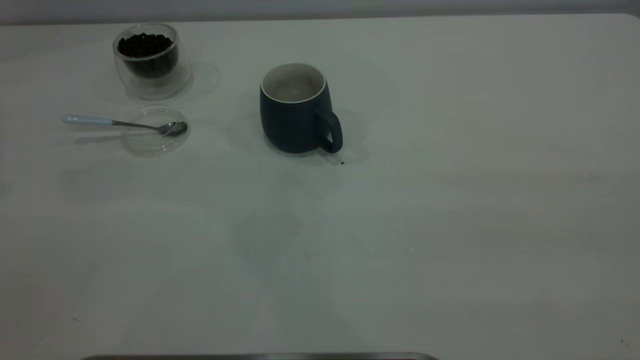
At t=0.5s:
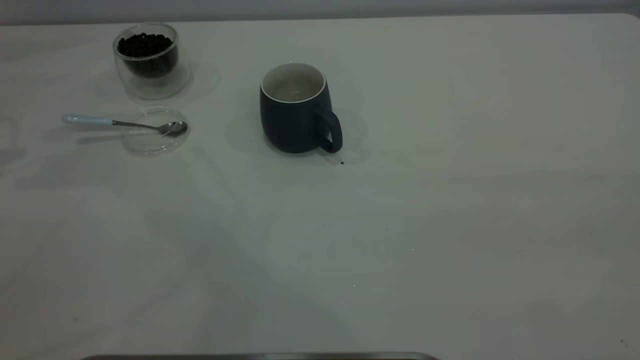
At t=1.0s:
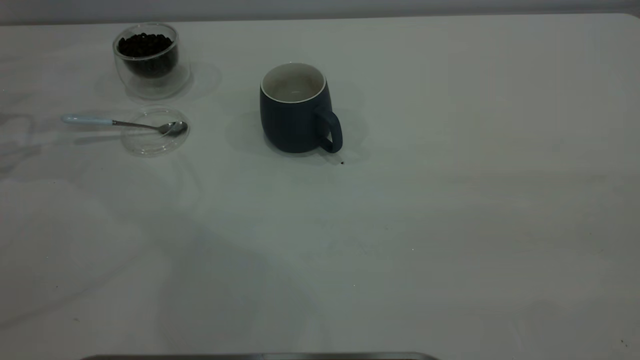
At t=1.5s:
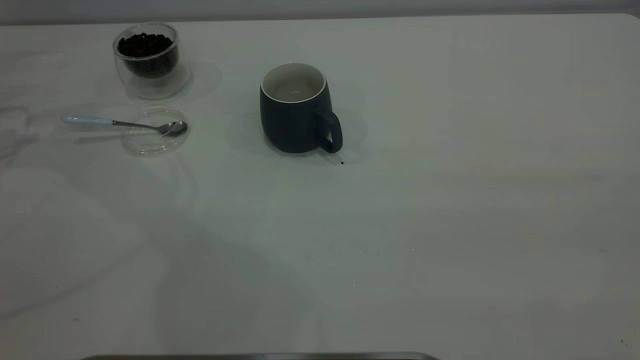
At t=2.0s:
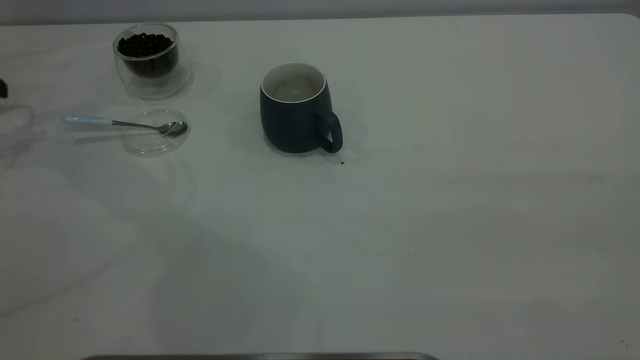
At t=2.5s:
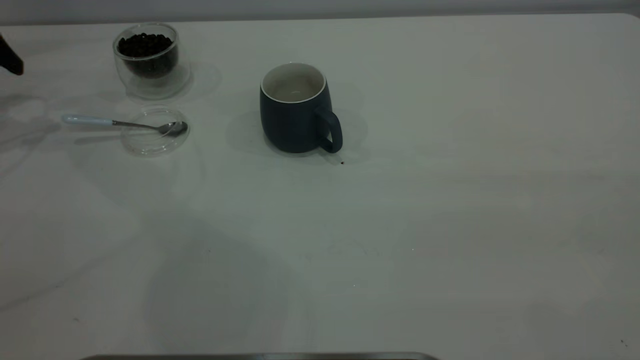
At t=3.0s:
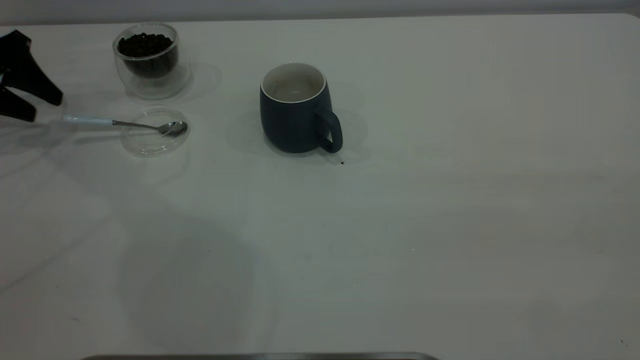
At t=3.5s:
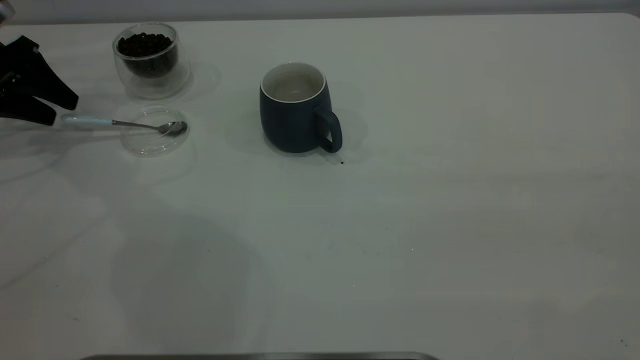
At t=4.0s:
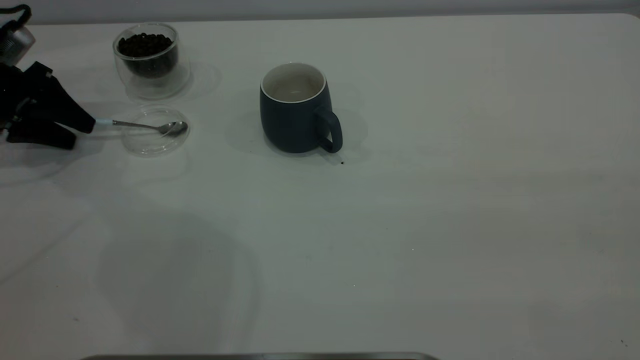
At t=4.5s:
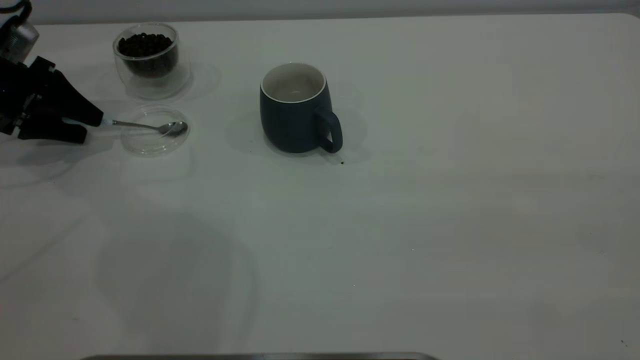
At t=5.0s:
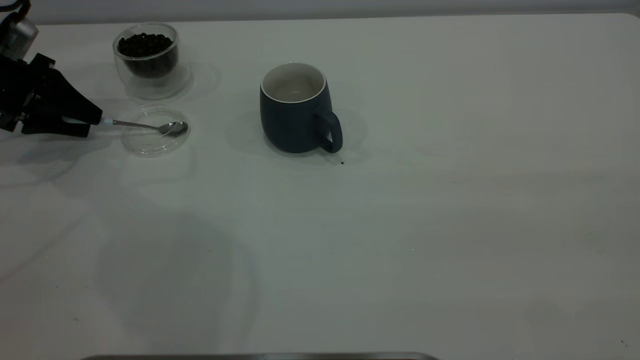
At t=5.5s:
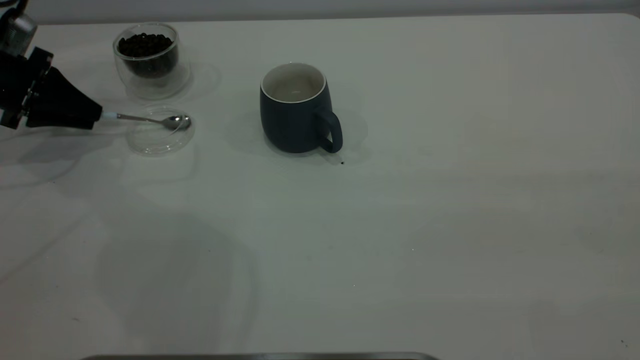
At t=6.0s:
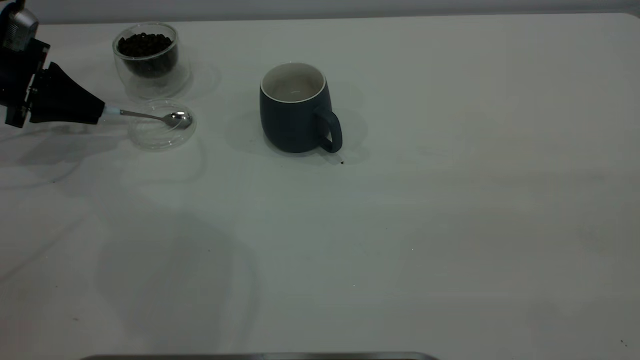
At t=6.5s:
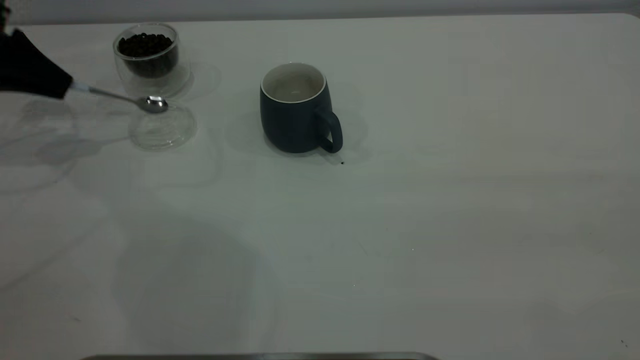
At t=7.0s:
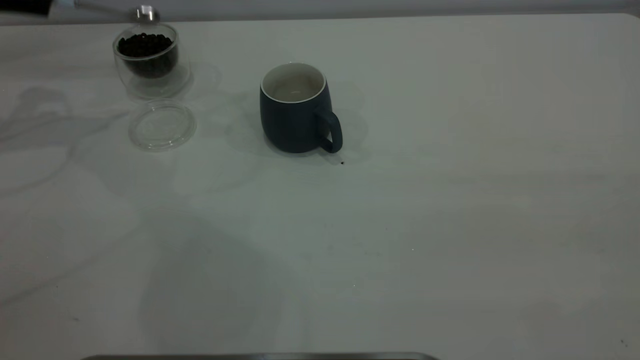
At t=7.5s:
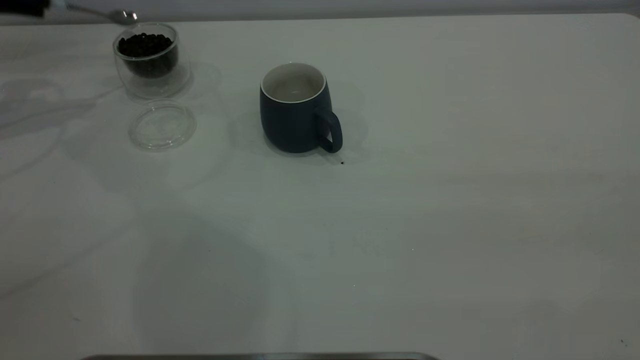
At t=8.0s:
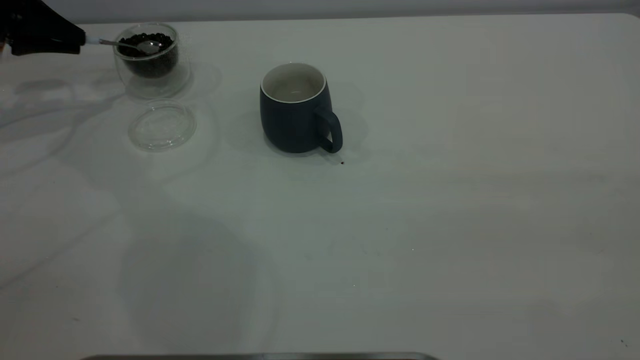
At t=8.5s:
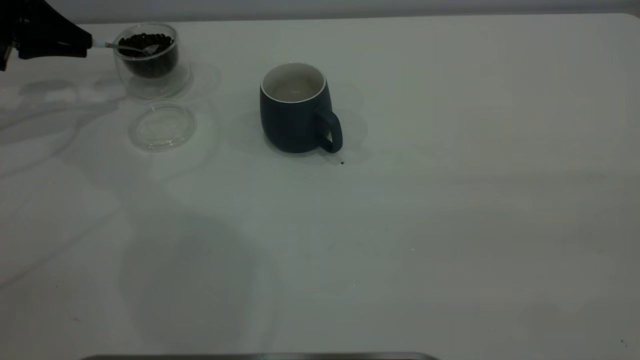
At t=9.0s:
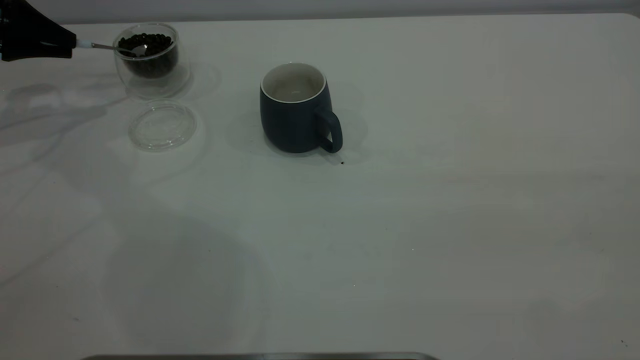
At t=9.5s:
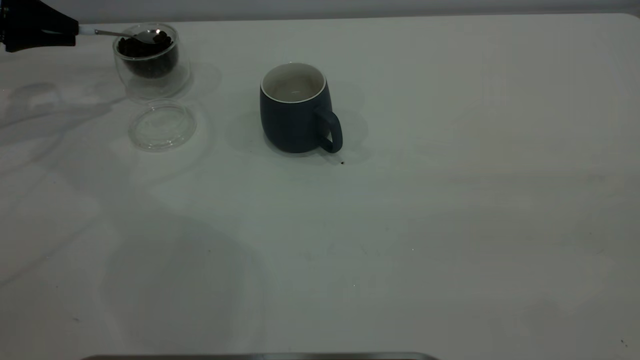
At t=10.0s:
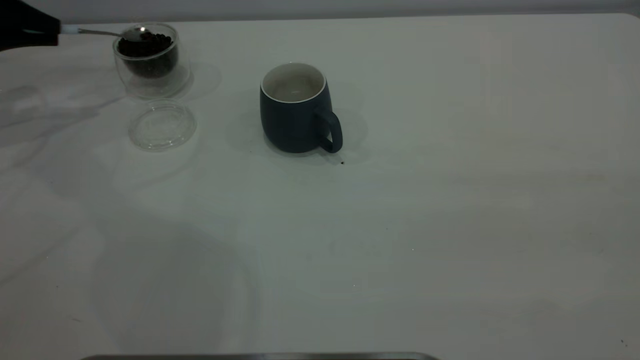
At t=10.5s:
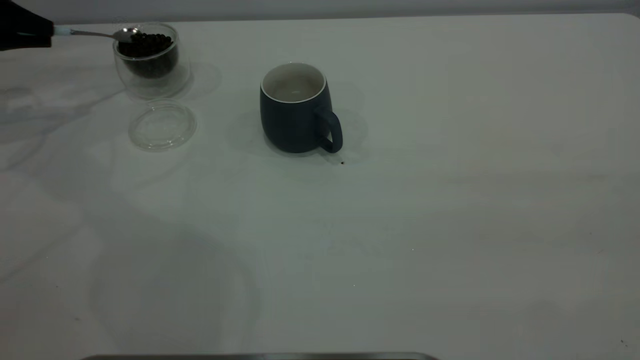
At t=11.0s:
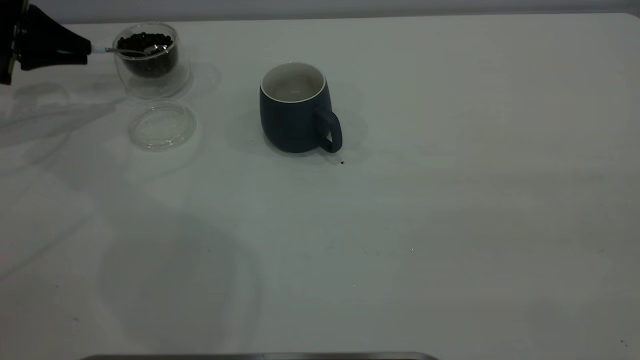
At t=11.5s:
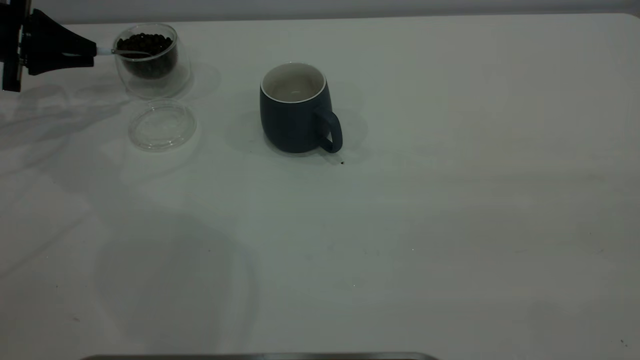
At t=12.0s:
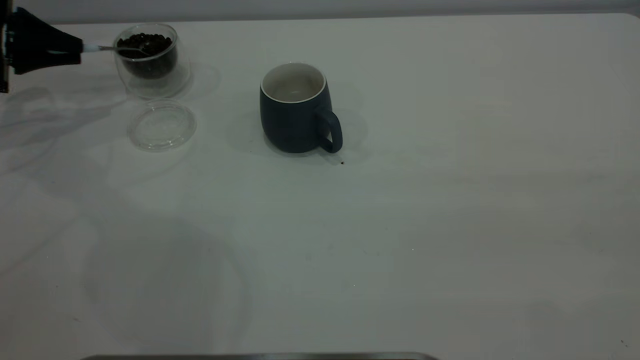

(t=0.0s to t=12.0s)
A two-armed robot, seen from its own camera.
Task of the whole recording: the right gripper place the grey cup in the center of the table, the left gripper take the blue spoon from the cup lid and scoop out the coffee beans from the coffee cup and put them into the grey cup, the left gripper put the spoon back into the cup lid.
Step, t=0.0s - t=6.0s: Pick up the spoon.
t=2.0s - t=4.0s: The left gripper is displaced downward by approximately 10 cm.
t=4.0s - t=6.0s: The left gripper closes its fingers.
t=6.0s - t=8.0s: The left gripper shifts some 5 cm upward.
t=8.0s - t=12.0s: The grippers stay close to where they were, moving slightly.

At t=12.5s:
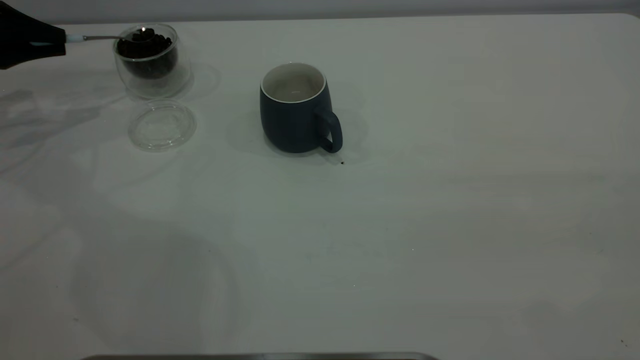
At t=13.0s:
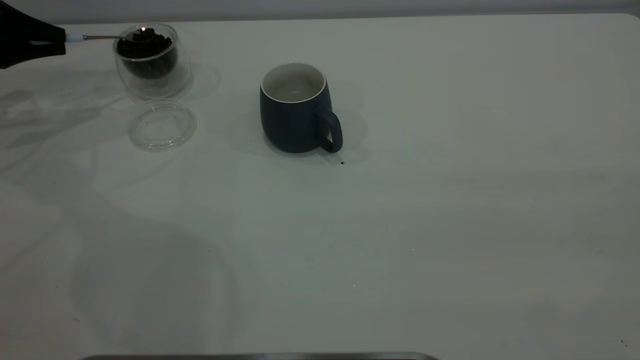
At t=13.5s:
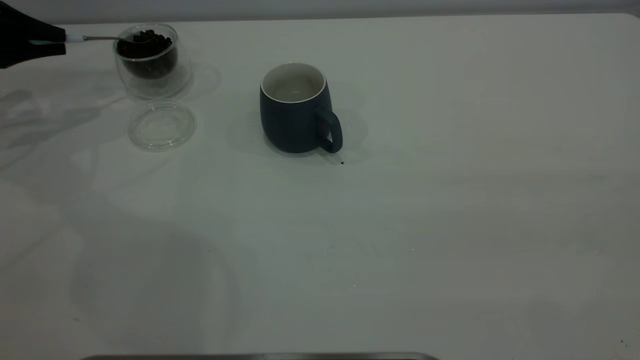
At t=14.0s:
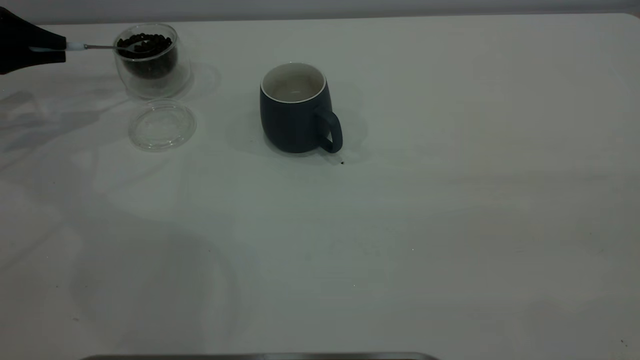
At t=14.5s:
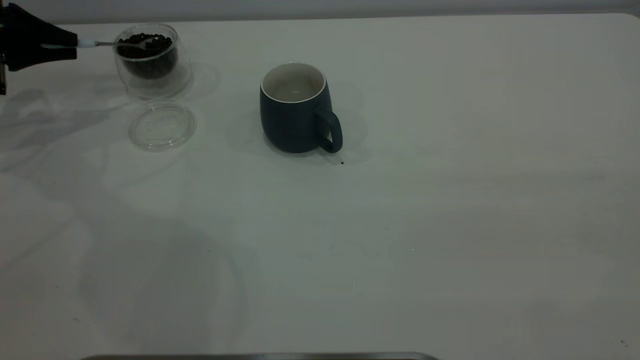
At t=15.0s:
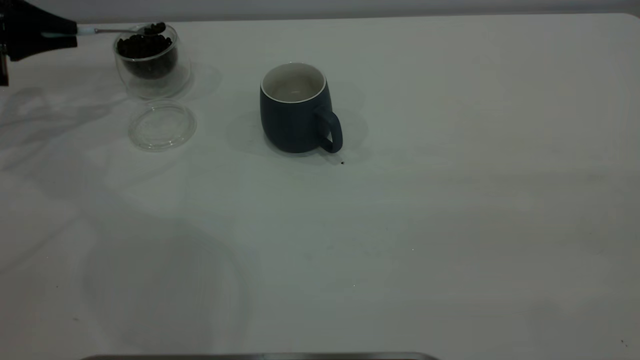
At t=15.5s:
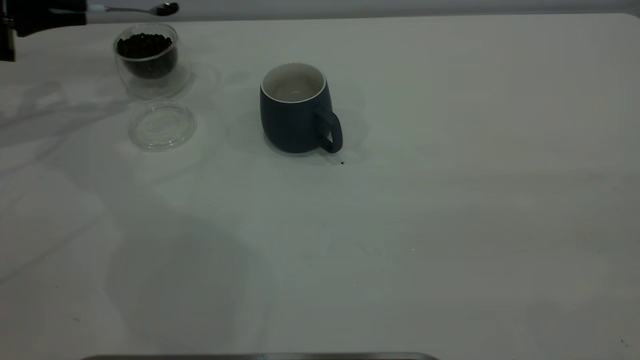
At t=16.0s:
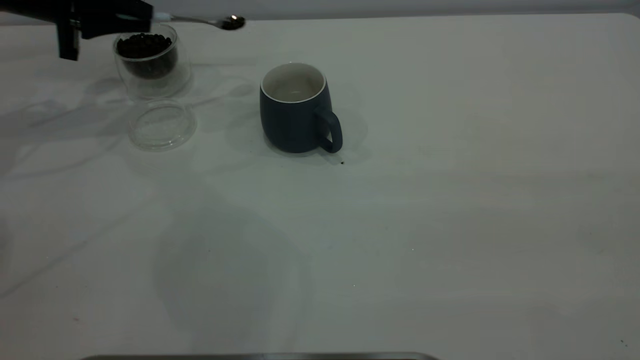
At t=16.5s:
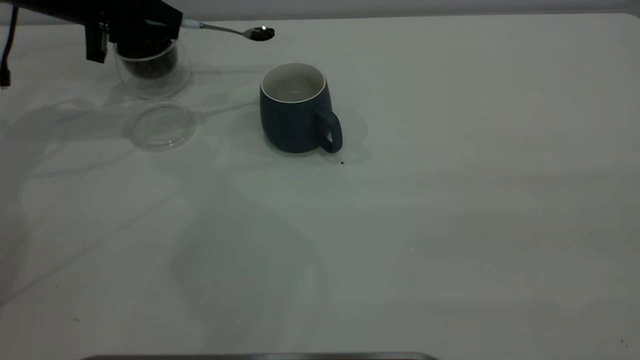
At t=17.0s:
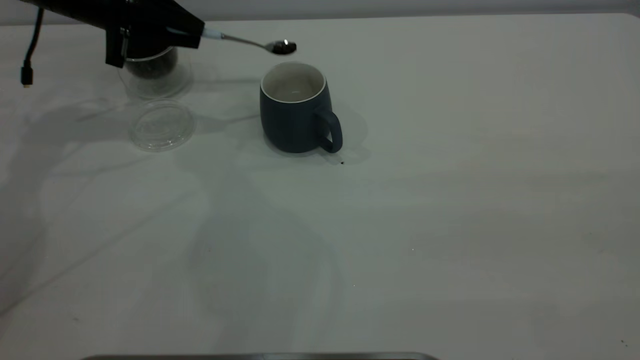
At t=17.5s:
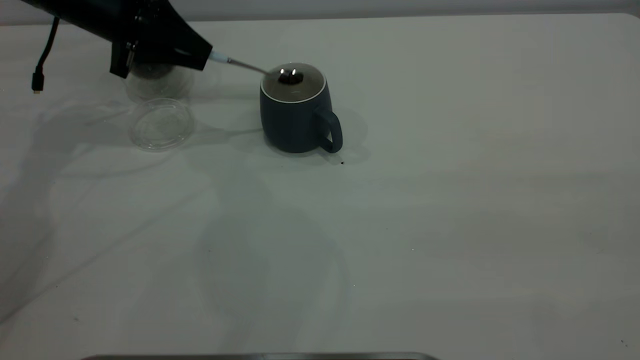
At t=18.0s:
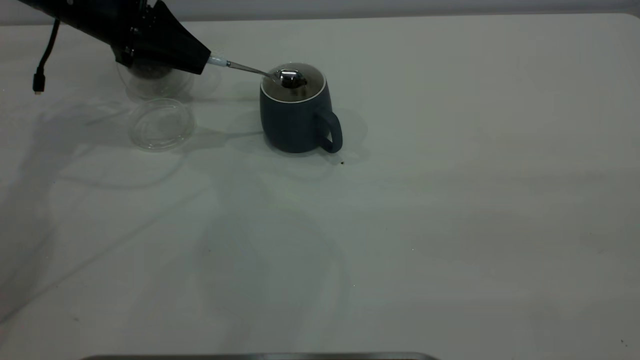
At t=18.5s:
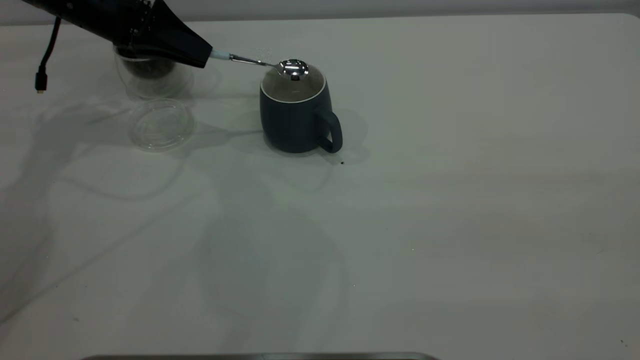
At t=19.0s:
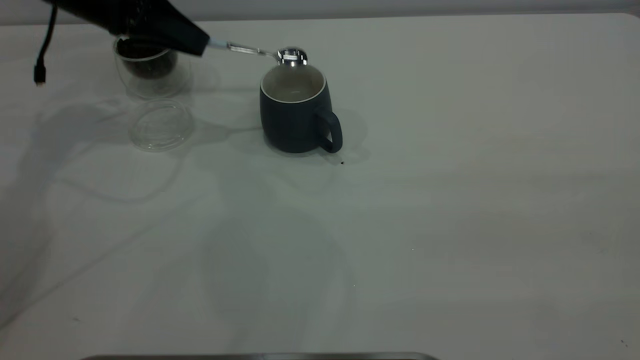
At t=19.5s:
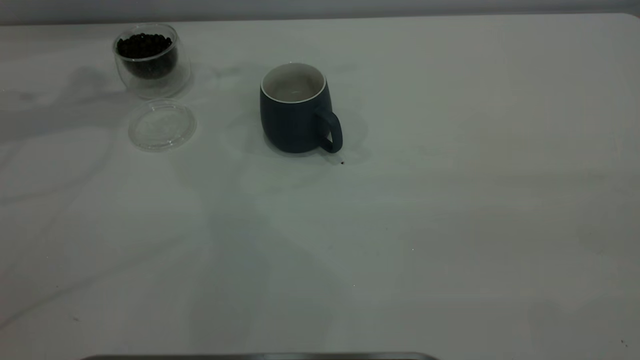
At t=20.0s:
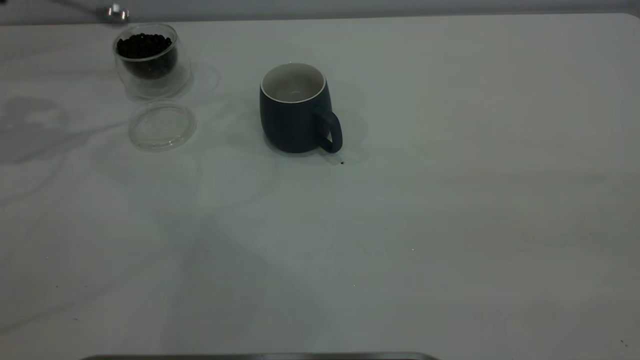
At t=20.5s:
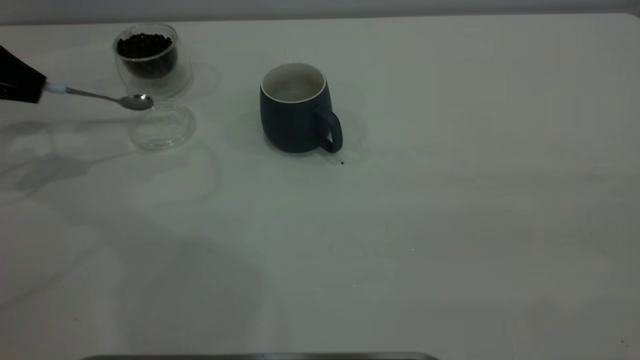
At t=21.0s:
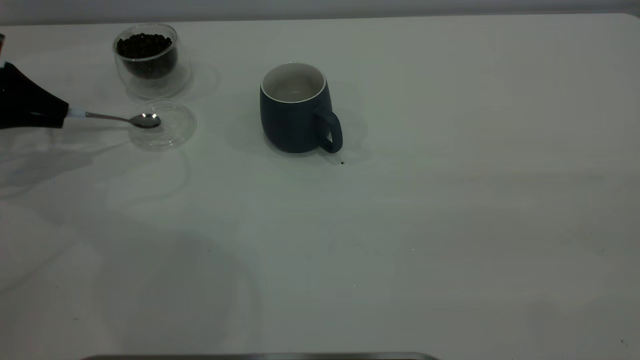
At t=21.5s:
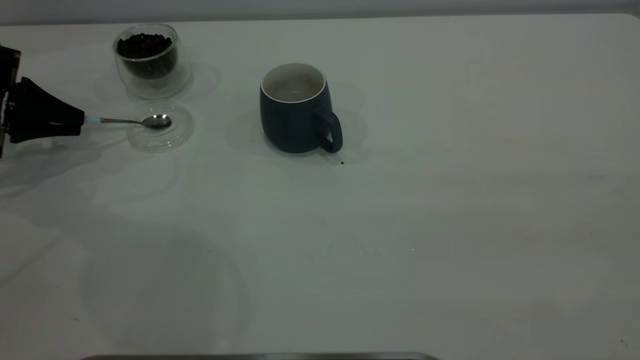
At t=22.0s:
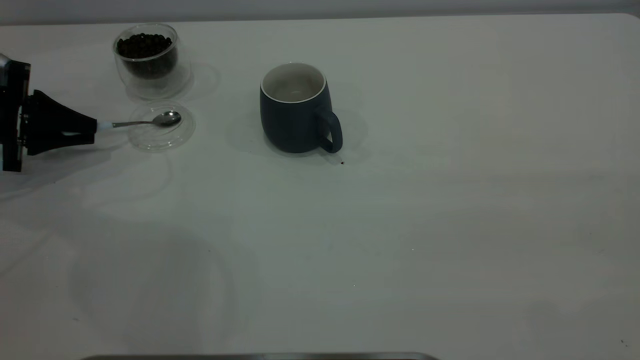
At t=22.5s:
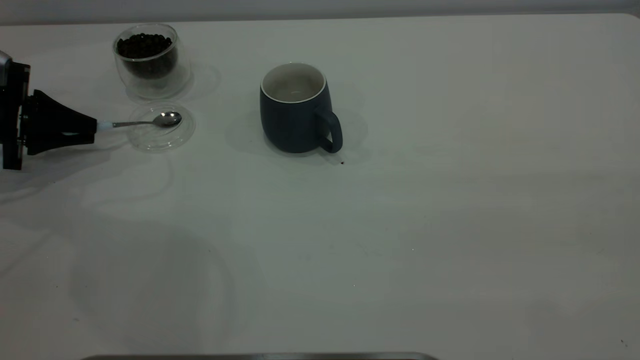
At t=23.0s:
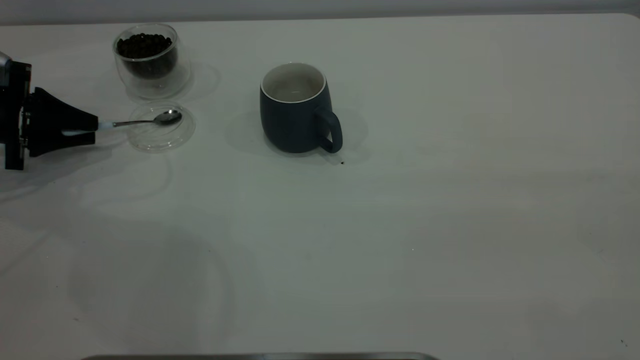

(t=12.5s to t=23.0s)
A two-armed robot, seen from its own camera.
Task of the whole recording: the right gripper place the grey cup in the center of the table, the left gripper take the blue spoon from the cup lid and scoop out the coffee beans from the coffee cup and put them into the grey cup, the left gripper put the spoon back into the cup lid.
Step, t=12.5s - t=18.5s: Scoop a spoonful of beans into the cup.
t=14.5s - t=16.5s: The left gripper goes about 15 cm to the right.
t=19.0s - t=21.0s: The left gripper shifts some 20 cm to the left, backward and downward.
t=21.0s - t=23.0s: The left gripper heads downward, covering about 5 cm.
